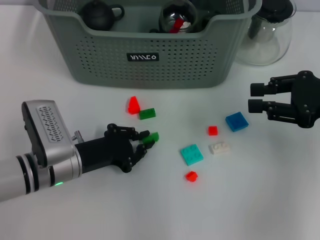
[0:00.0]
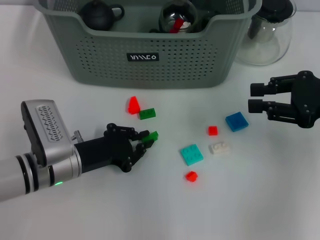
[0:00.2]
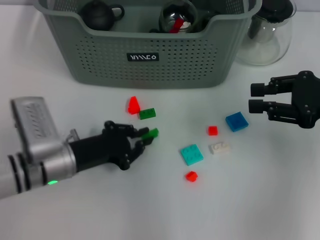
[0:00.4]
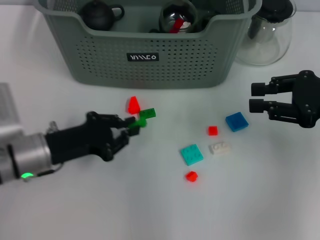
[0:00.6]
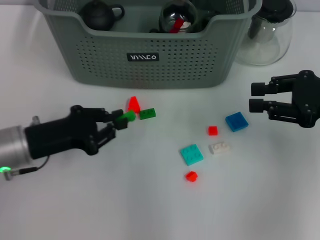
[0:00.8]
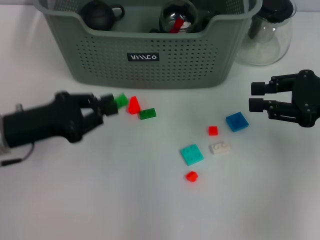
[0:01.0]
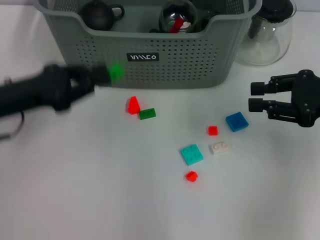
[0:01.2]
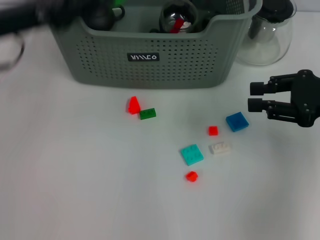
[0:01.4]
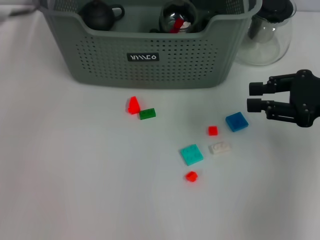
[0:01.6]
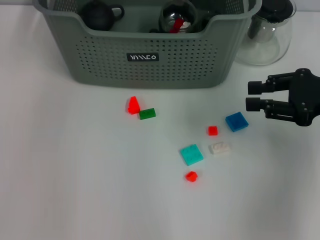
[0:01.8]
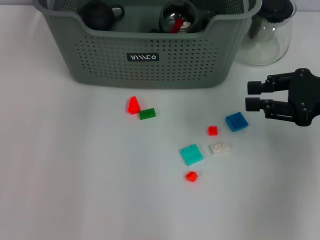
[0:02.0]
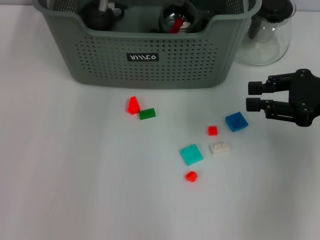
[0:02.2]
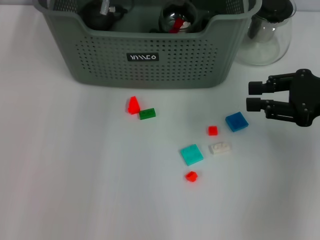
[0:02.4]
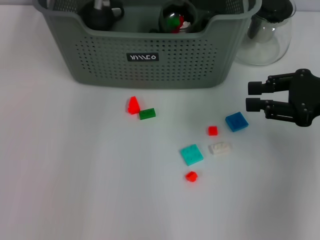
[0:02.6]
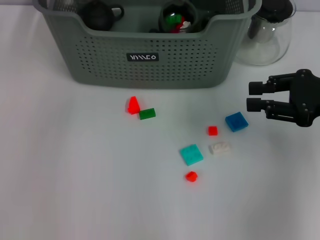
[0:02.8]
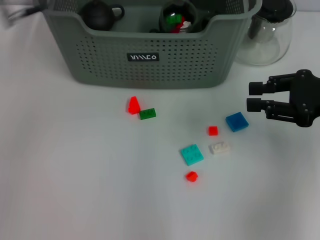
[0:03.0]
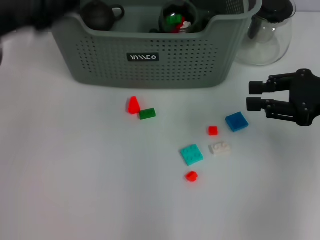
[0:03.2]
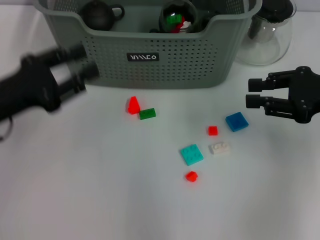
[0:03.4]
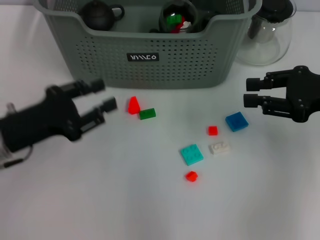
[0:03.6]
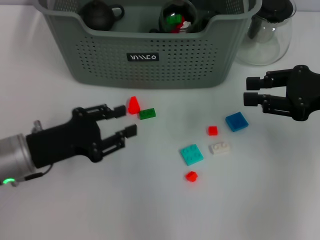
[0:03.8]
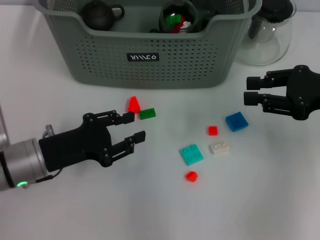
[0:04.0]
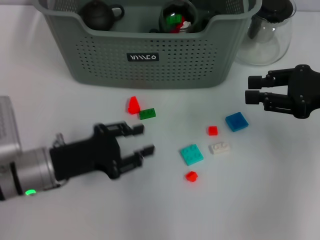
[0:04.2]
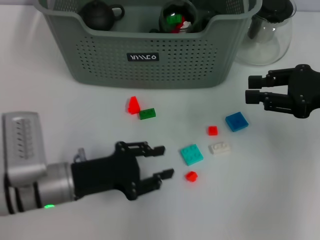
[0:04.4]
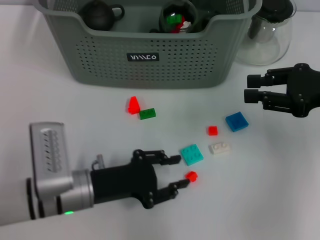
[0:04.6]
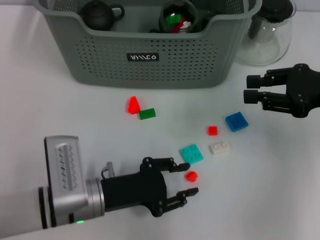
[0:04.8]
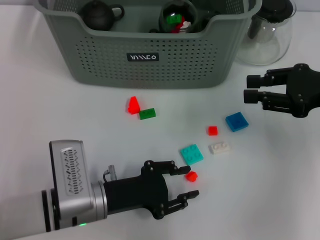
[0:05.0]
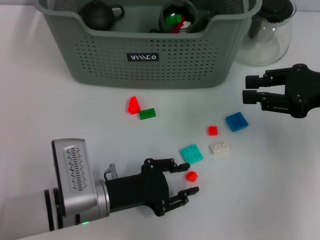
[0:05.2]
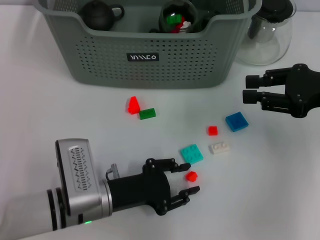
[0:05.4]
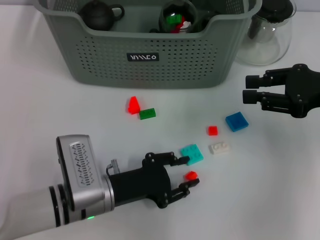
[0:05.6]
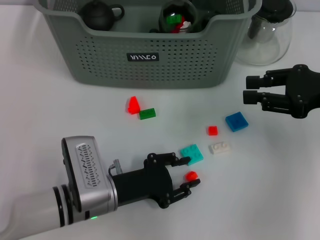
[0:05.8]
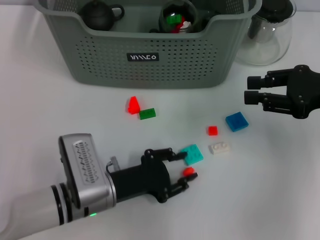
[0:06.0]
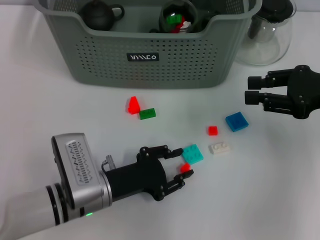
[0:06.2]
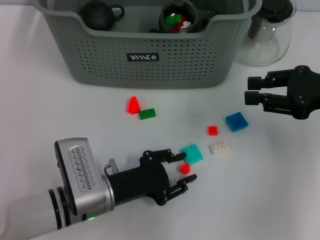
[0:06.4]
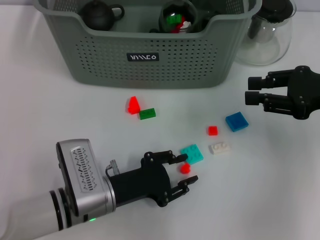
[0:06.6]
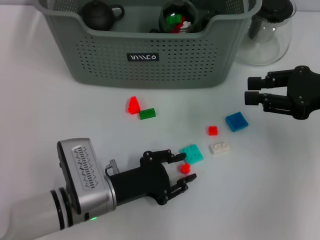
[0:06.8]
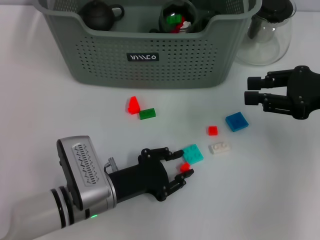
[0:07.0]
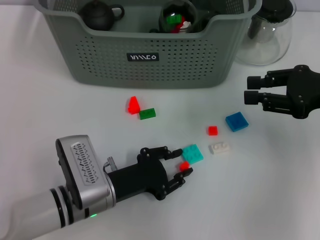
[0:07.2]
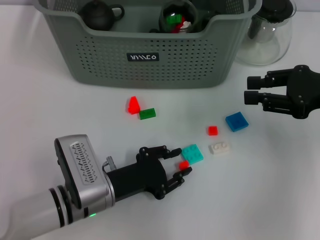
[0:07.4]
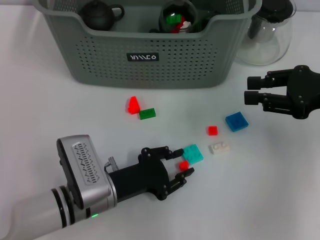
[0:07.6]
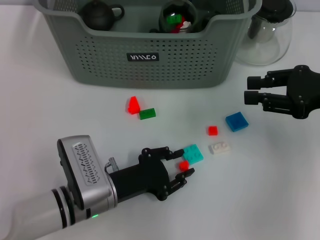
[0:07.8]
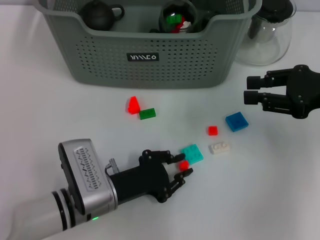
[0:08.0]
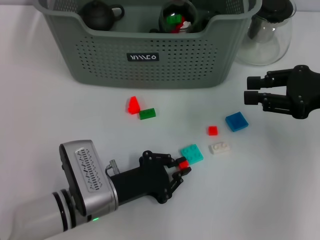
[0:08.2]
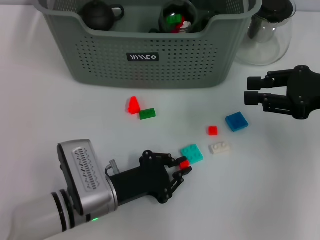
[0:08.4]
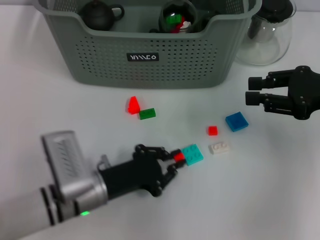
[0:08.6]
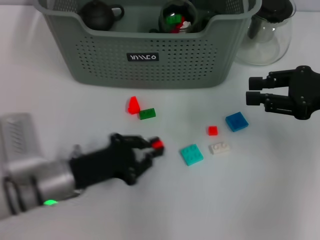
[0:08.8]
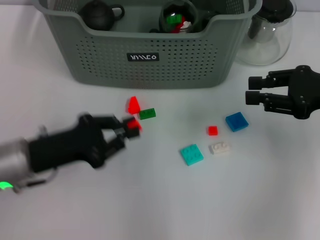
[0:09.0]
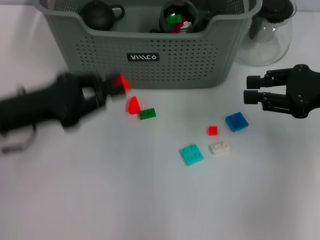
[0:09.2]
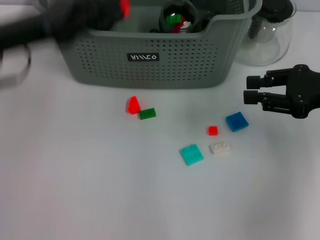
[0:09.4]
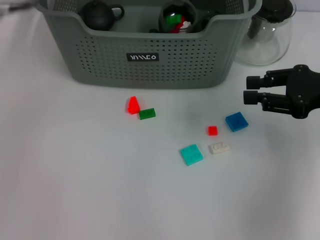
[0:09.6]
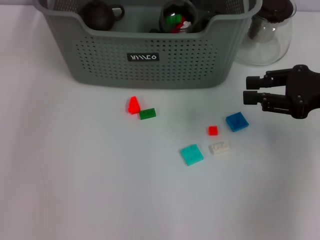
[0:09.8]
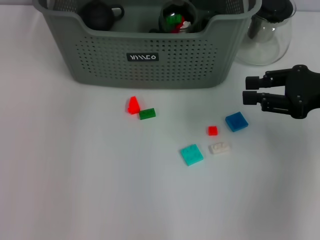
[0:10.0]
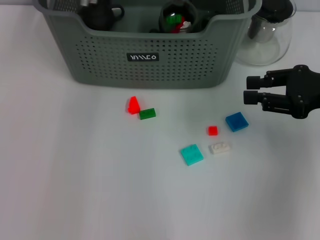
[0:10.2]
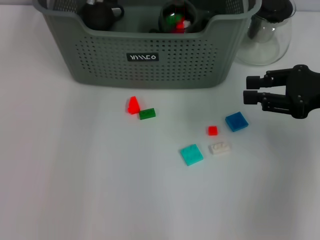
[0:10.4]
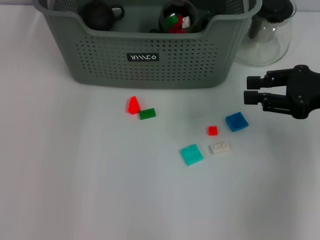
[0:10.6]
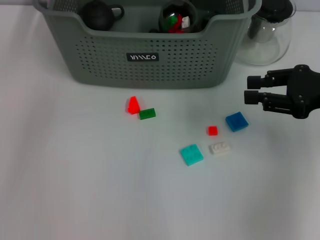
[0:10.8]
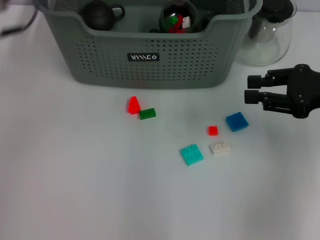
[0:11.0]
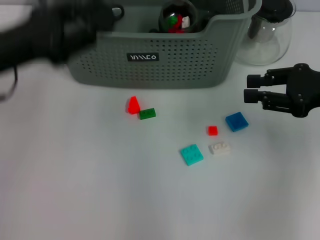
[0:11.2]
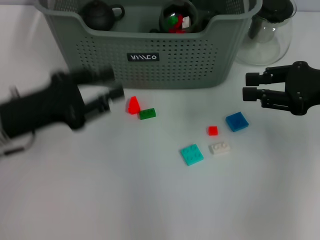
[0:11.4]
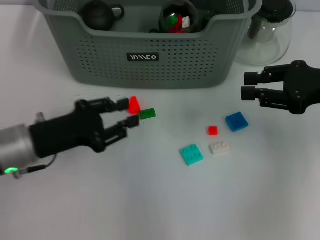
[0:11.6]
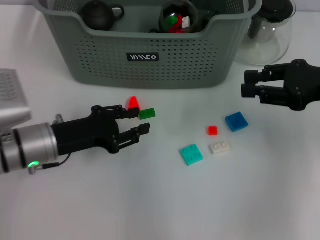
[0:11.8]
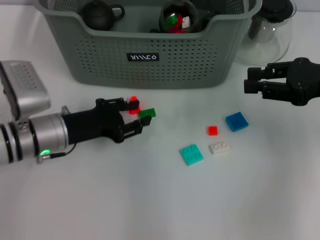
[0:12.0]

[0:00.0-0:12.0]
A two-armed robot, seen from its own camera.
Task of the whole recording: pick up the teacup on the table and place it into the storage bin, pick up the block on the table and place it into the storage bin.
Step, 0.2 to 2.4 s: Place the green block in the storage box with left gripper.
Step, 2.6 to 8.2 s: Grasp the orange block with left gripper.
Step, 8.4 to 10.4 s: Place the orange block in the storage box with left gripper.
0.0 to 1.6 s: The left gripper is displaced upward and forward by approximately 25 cm.
1.6 to 3.0 s: The left gripper goes to the right and returns, approximately 15 cm each way, and opens its fingers.
3.0 to 4.4 s: The left gripper shifts roughly 25 cm downward and backward.
4.4 to 6.0 s: The left gripper goes about 5 cm to the right.
6.0 to 7.6 s: Neither gripper changes place.
7.6 to 9.0 s: The left gripper shifts roughly 15 cm to the left and upward.
9.0 to 10.4 s: The left gripper shifts roughly 30 cm forward, upward and to the right.
10.4 to 12.0 s: The left gripper moves downward, backward and to the left, roughly 25 cm.

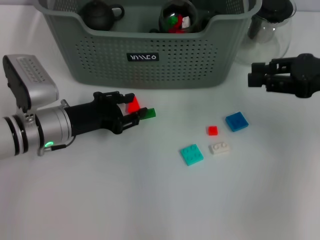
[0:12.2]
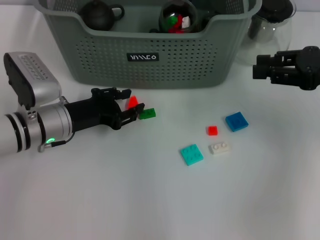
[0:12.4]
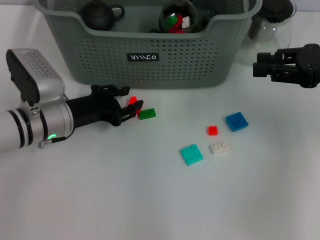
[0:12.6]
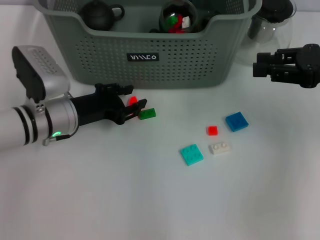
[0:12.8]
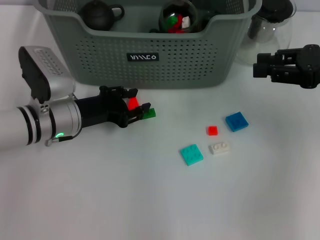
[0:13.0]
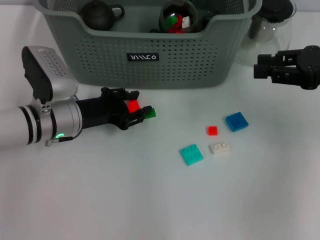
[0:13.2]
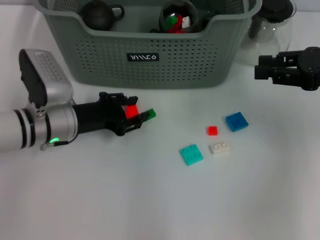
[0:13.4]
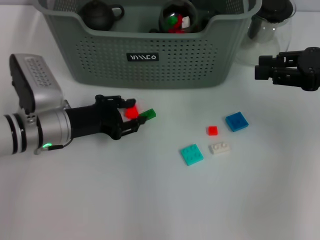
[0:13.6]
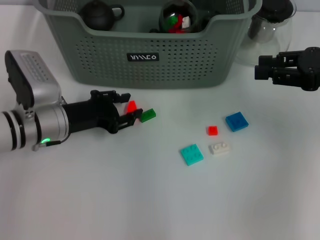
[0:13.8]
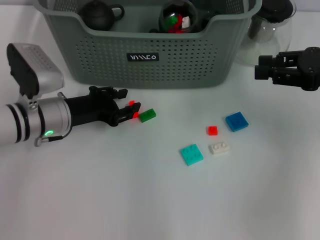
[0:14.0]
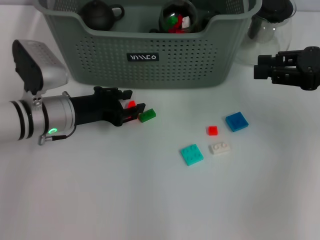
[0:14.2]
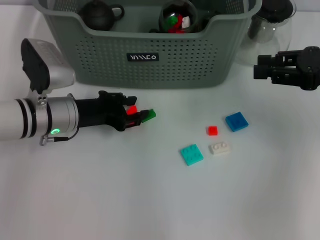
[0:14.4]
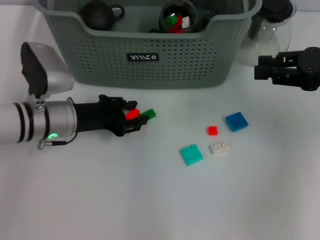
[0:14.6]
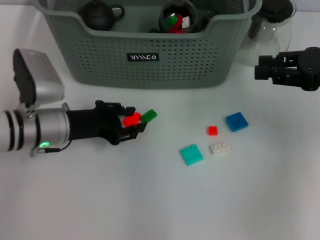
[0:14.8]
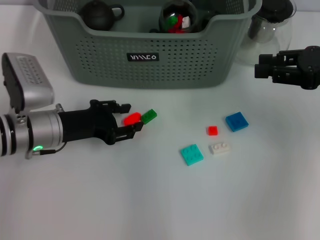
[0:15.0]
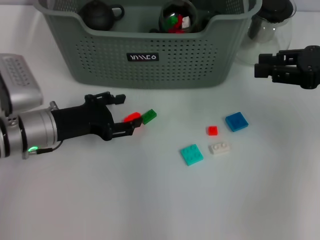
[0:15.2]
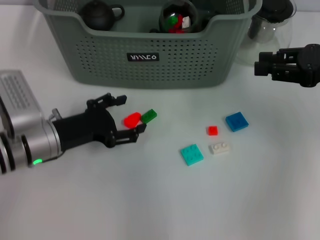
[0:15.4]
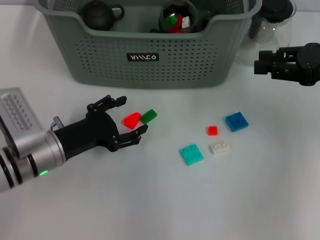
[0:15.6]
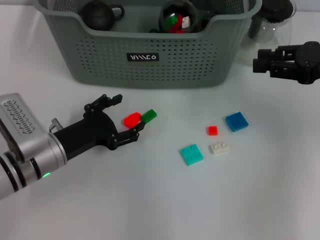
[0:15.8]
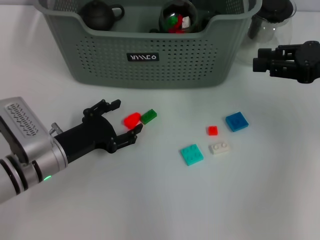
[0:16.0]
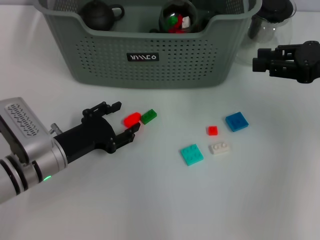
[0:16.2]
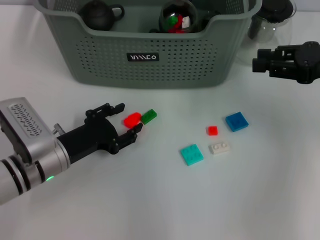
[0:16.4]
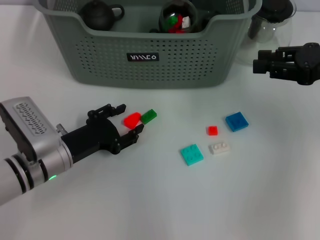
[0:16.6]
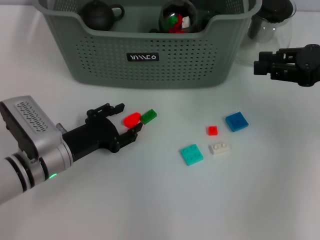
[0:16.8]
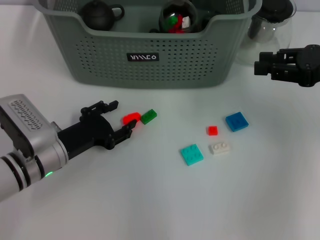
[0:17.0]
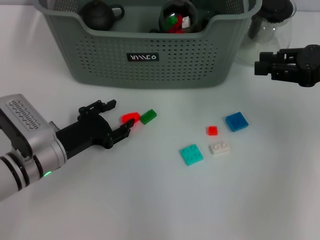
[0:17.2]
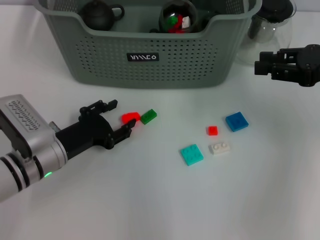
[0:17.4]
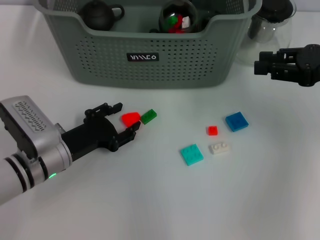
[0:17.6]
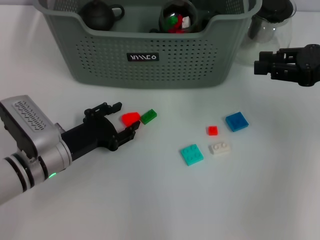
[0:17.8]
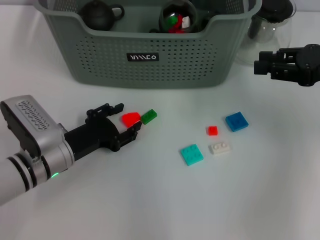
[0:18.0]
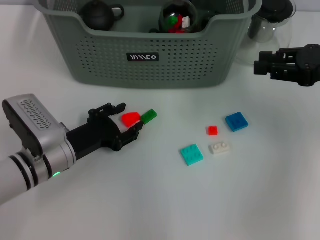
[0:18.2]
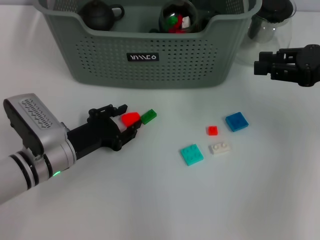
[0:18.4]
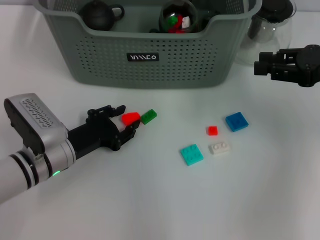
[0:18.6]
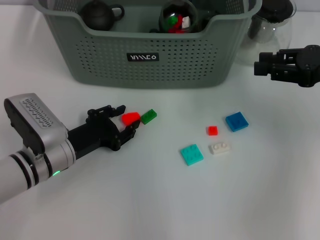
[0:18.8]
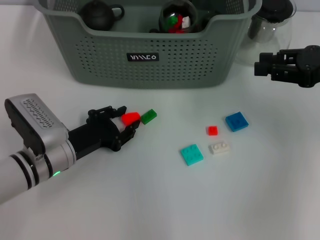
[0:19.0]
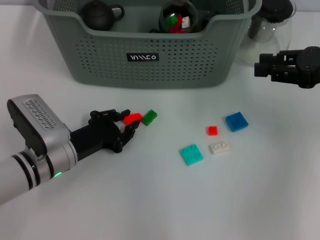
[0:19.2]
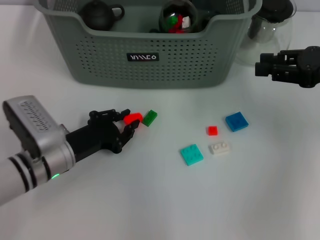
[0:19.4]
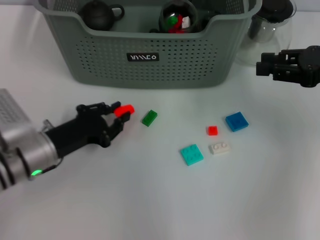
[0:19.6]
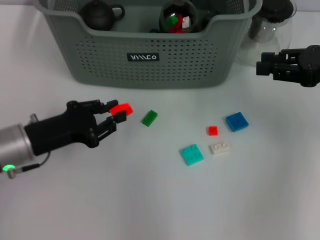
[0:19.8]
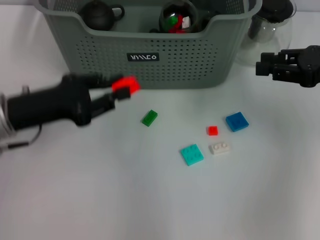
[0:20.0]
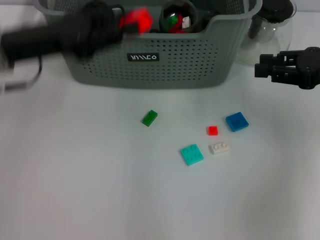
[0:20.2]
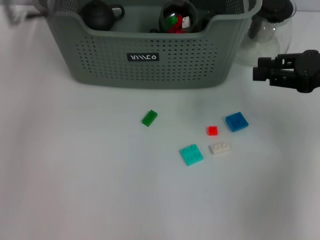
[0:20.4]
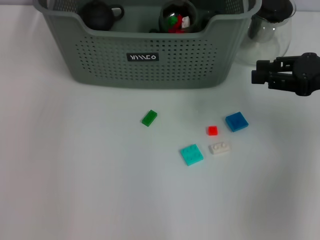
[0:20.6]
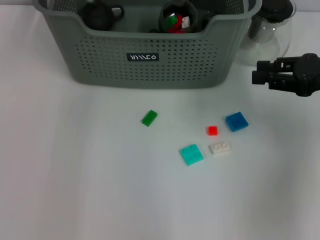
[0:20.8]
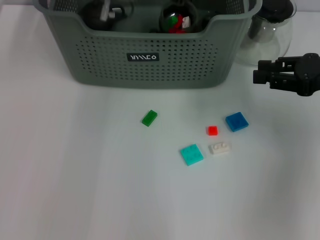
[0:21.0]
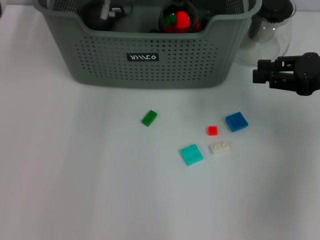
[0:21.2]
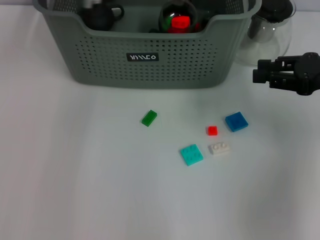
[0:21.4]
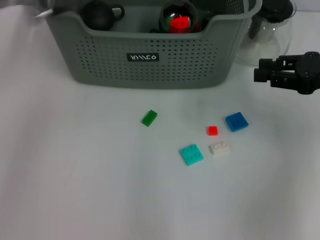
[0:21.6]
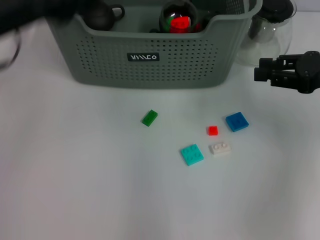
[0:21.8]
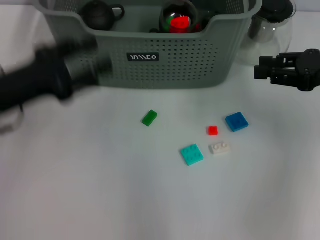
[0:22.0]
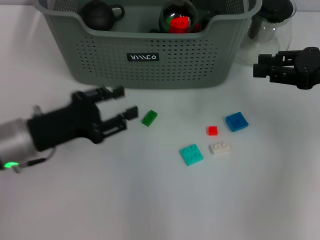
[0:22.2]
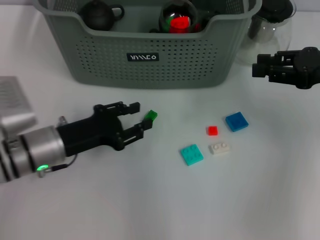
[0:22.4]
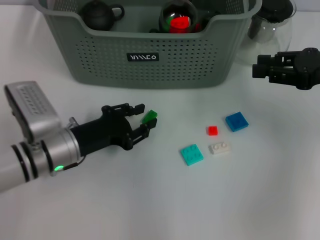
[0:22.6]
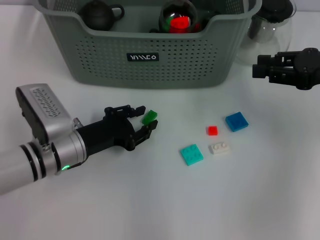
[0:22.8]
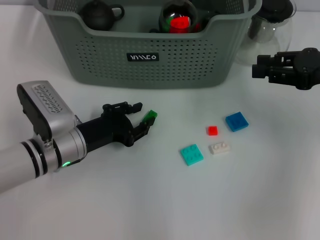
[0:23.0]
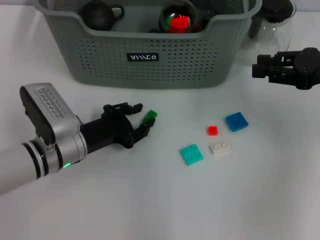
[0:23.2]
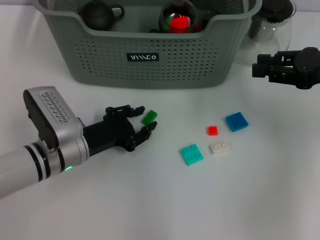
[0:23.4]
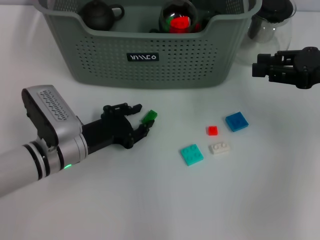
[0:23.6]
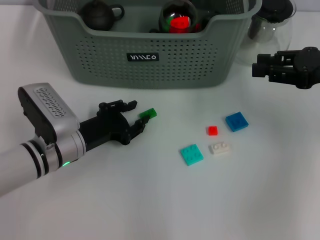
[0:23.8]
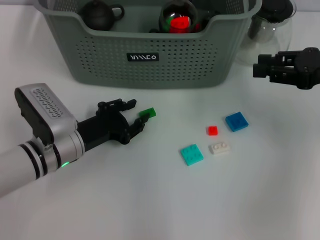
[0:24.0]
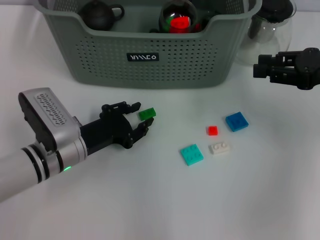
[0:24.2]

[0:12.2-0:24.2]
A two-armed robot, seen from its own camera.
Task of the whole recording: pick up the teacup on the table and place it into the storage bin, pick up the block on the table and place it into the storage bin.
Step, 12.2 to 19.2 s: Grasp the orange block with left gripper.
Step, 19.4 to 21.0 s: Place the orange block in the storage box with left gripper.
12.2 to 15.2 s: The grippers stay close to where they were, moving slightly.
15.2 to 16.6 s: The left gripper heads downward, covering about 5 cm.
16.6 to 18.2 s: The two grippers keep their place.
18.2 to 19.8 s: The left gripper moves upward, approximately 5 cm, and closes up.
19.8 to 21.2 s: The left gripper is displaced forward, to the right and upward by roughly 30 cm.
21.2 to 22.6 s: The left gripper shifts approximately 30 cm backward, downward and to the left.
22.6 to 24.2 s: The grippers move only a little.
